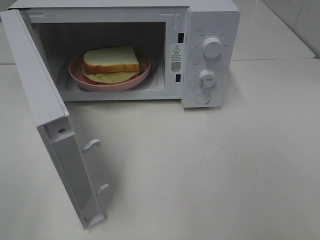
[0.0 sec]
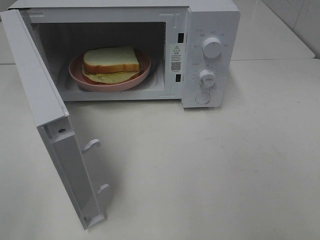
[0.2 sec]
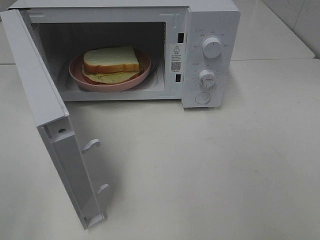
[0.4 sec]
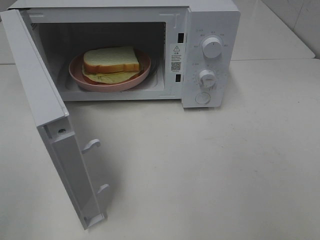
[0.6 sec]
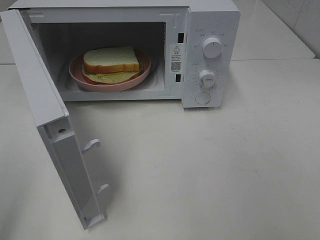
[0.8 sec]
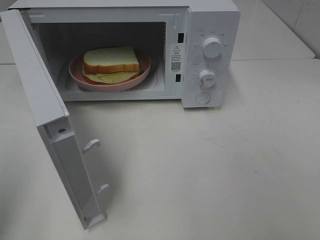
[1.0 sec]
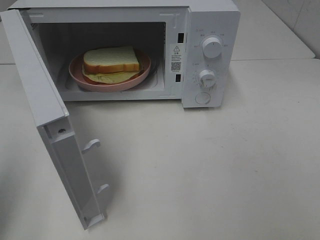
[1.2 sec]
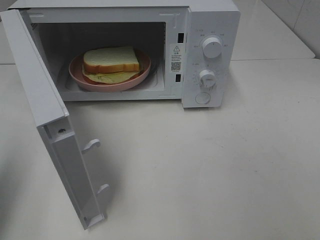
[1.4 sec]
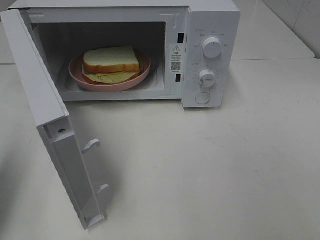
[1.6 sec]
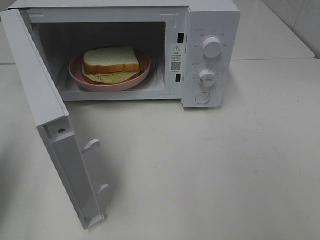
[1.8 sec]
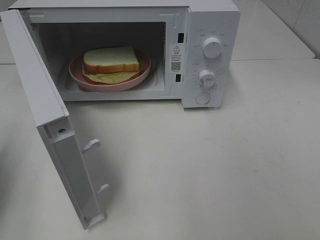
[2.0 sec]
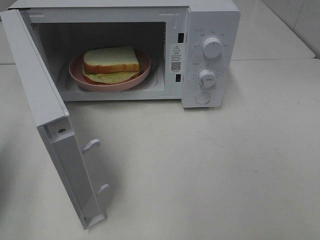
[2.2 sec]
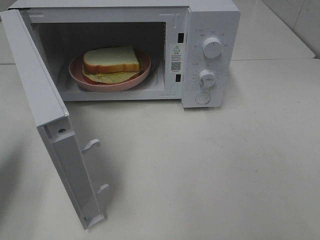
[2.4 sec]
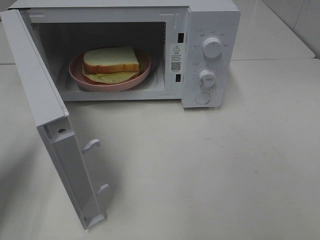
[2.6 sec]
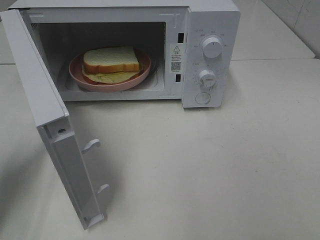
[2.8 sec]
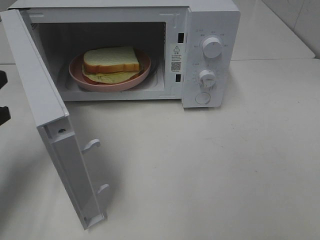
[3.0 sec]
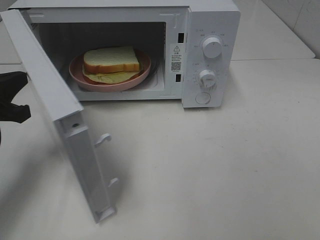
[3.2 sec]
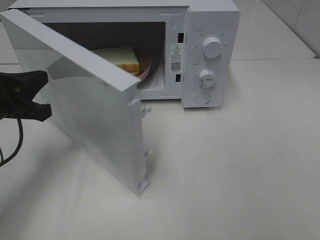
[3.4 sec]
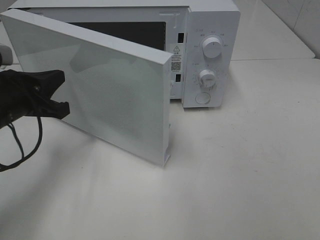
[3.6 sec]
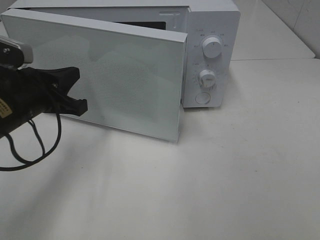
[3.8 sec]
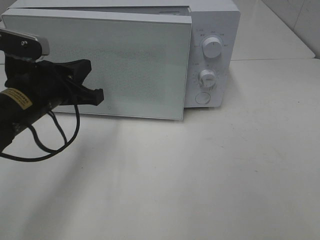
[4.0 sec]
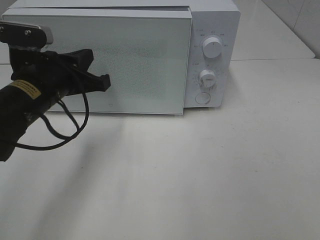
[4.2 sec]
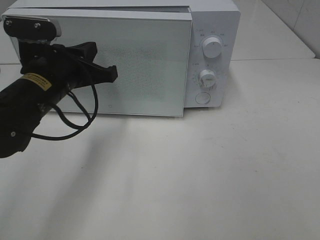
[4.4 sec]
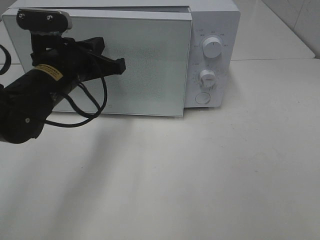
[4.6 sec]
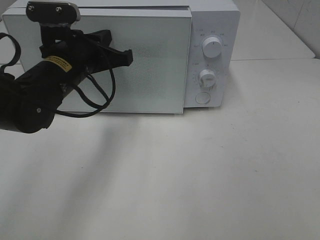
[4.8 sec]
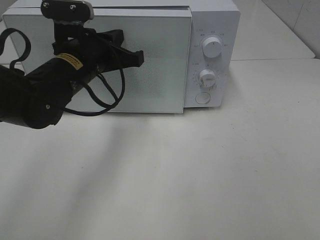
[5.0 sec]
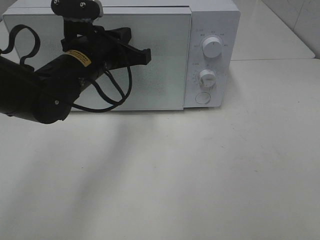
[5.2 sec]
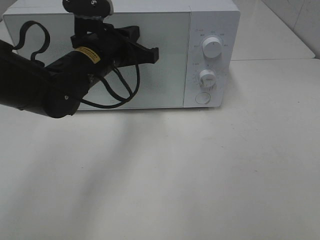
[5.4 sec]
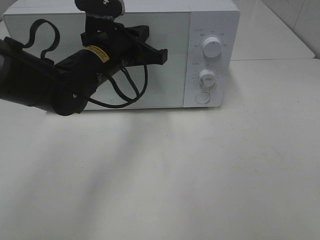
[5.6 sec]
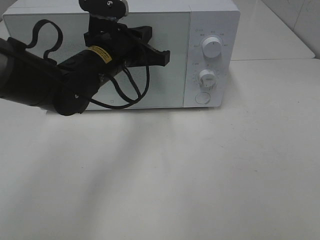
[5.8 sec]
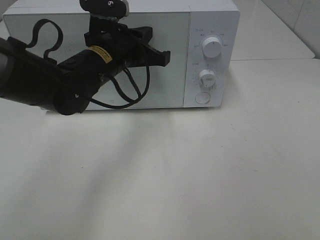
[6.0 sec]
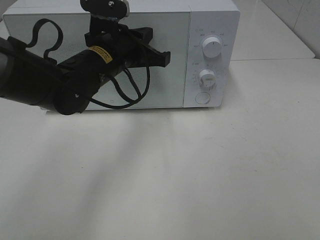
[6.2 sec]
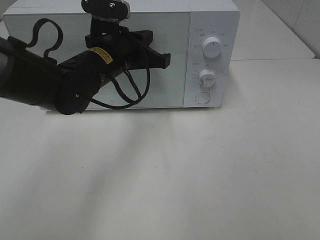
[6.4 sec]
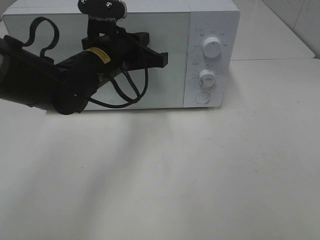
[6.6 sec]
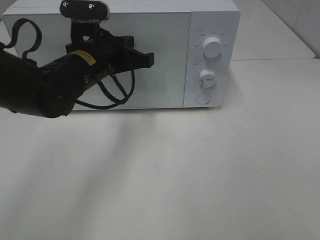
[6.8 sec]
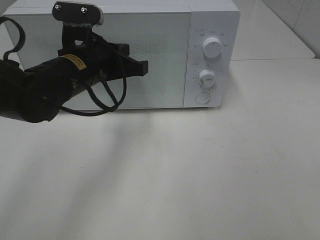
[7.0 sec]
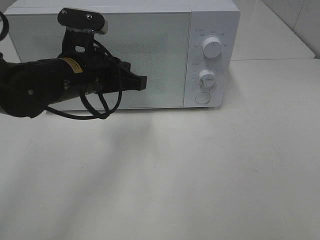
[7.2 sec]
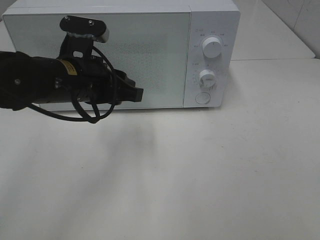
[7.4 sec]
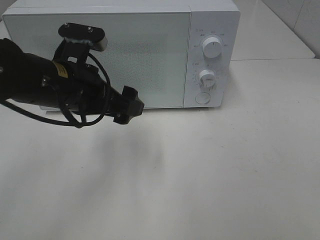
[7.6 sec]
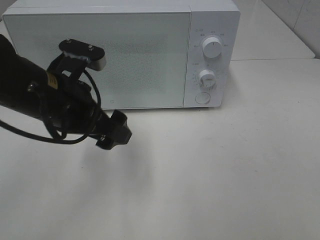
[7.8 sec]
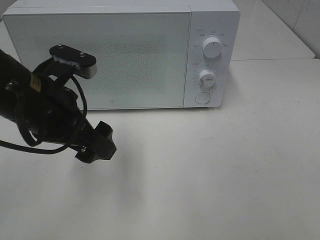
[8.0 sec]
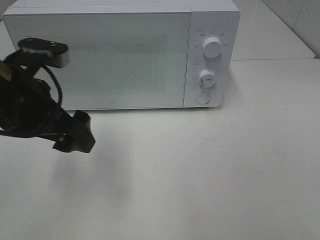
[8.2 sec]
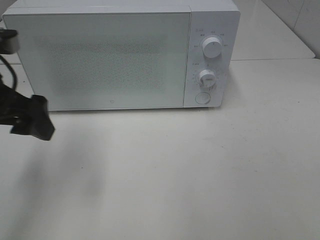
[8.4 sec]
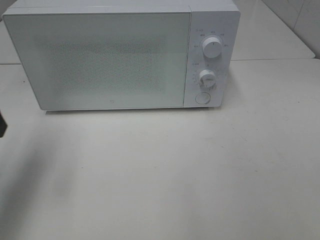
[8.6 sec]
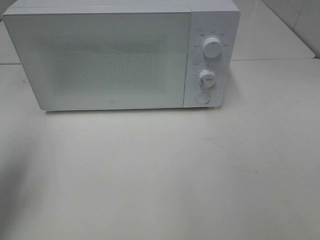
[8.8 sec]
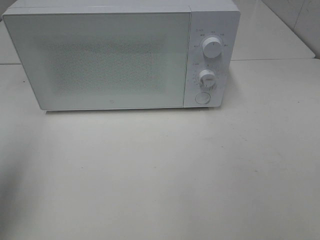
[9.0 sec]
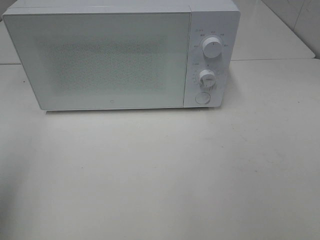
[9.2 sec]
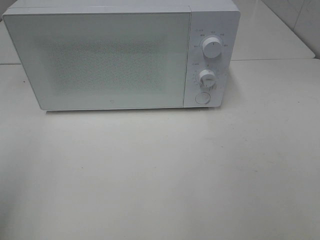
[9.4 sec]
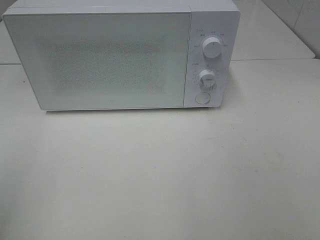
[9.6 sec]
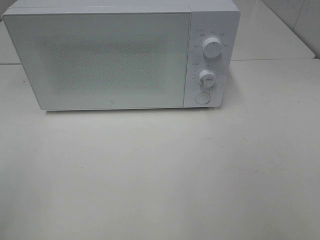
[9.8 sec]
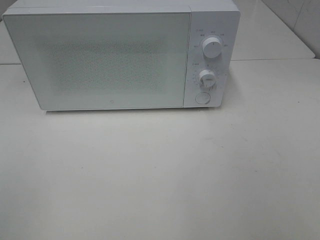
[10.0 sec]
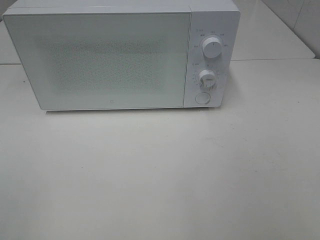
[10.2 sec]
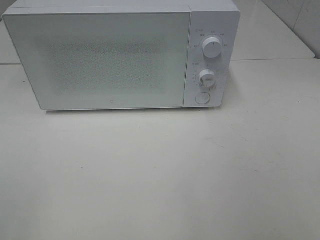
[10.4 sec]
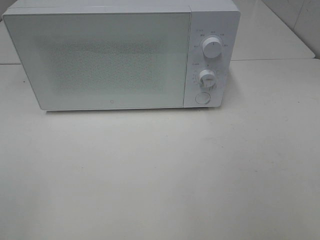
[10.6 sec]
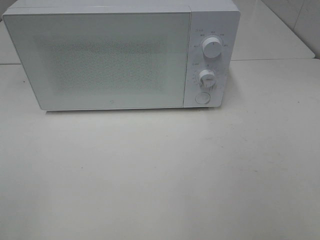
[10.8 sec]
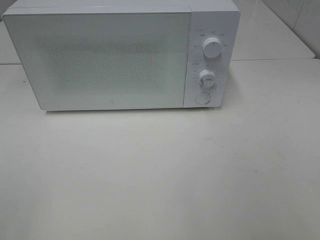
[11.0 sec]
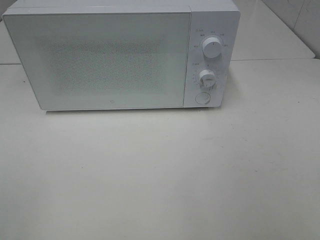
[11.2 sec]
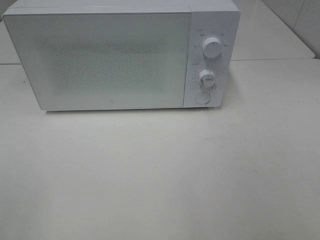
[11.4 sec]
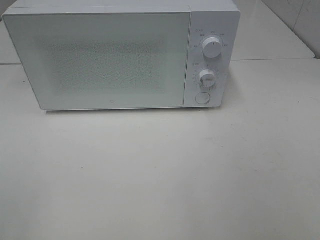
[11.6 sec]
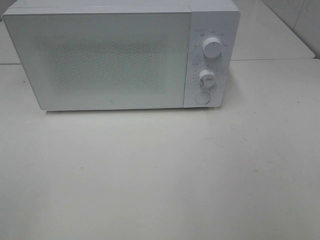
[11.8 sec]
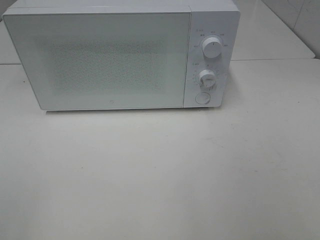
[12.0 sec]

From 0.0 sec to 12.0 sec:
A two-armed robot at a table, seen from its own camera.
Task of the whole recording: Heat Sandwich.
Step, from 0.0 sec to 7.0 sec: Left hand: close the microwave door.
From 0.0 sec to 1.6 sec: The left gripper goes about 15 cm forward, and closes its fingers.
From 1.6 sec to 3.0 sec: The left gripper heads downward and forward, covering approximately 15 cm.
From 3.0 sec to 4.4 sec: The left gripper travels to the right and forward by about 15 cm.
From 4.4 sec to 6.0 sec: The left gripper shifts approximately 10 cm to the right and forward.
From 6.0 sec to 7.6 sec: The left gripper shifts about 10 cm backward, and opens up.
From 7.6 sec to 9.0 sec: The left gripper heads to the left, upward and backward, covering roughly 25 cm.
From 9.0 sec to 10.4 sec: The left gripper shifts approximately 20 cm backward.
From 10.4 sec to 12.0 sec: The two grippers keep their place.

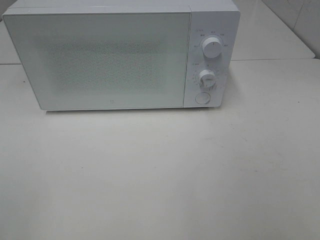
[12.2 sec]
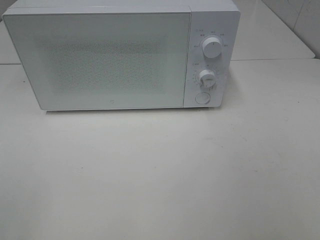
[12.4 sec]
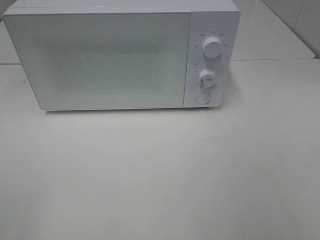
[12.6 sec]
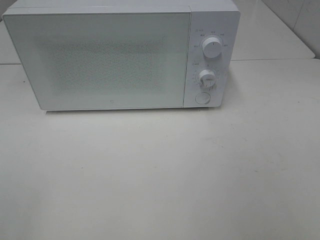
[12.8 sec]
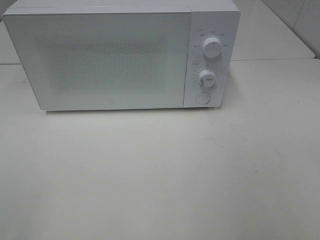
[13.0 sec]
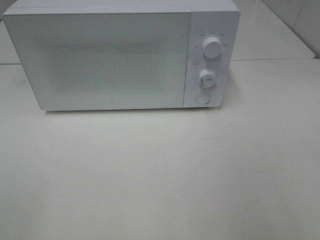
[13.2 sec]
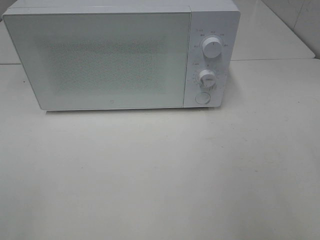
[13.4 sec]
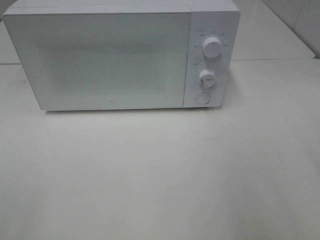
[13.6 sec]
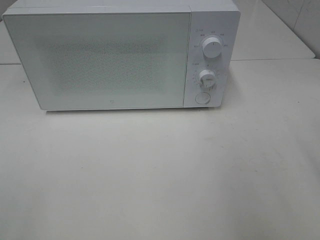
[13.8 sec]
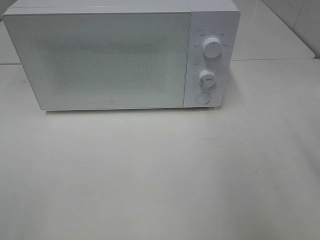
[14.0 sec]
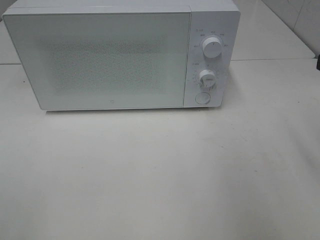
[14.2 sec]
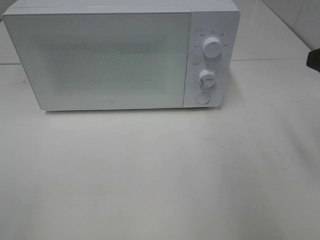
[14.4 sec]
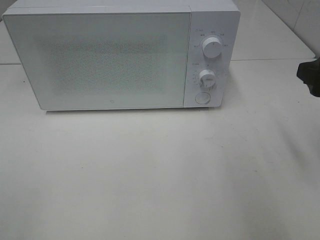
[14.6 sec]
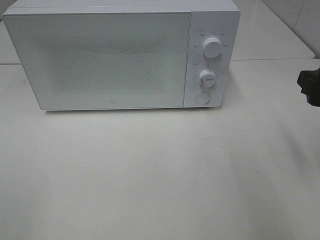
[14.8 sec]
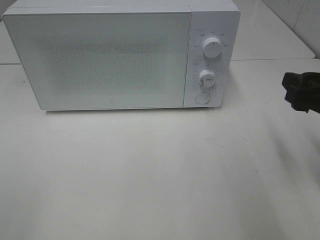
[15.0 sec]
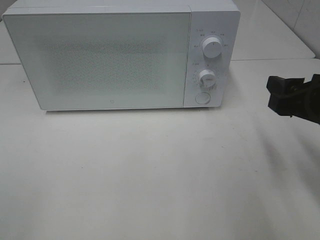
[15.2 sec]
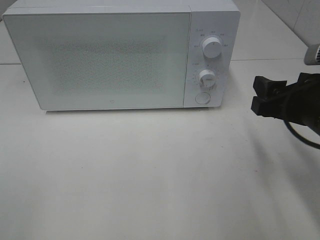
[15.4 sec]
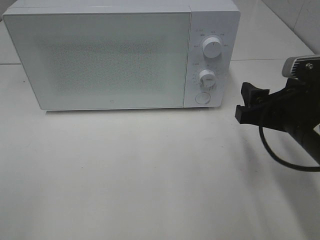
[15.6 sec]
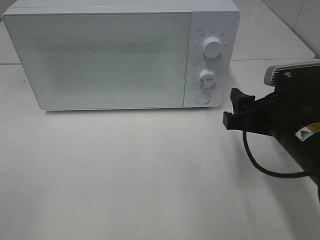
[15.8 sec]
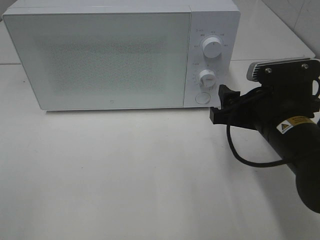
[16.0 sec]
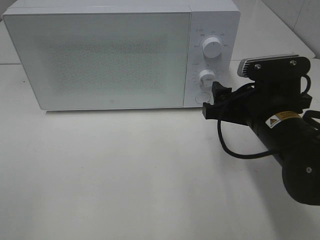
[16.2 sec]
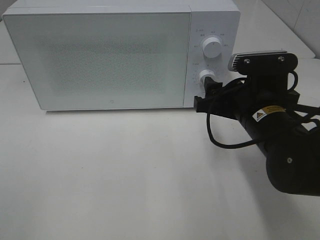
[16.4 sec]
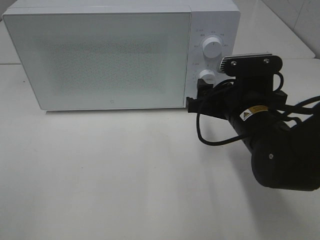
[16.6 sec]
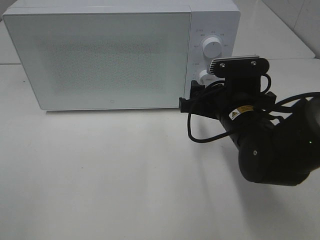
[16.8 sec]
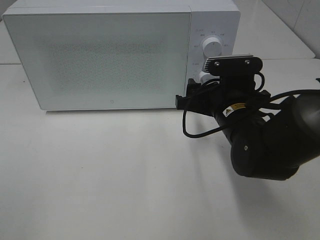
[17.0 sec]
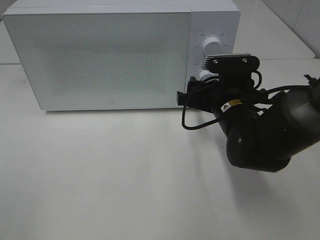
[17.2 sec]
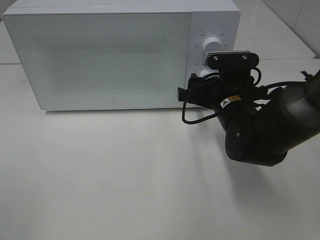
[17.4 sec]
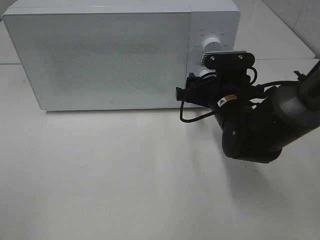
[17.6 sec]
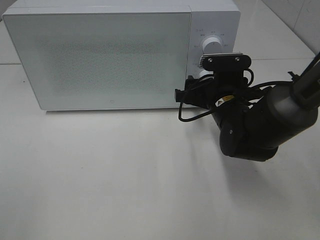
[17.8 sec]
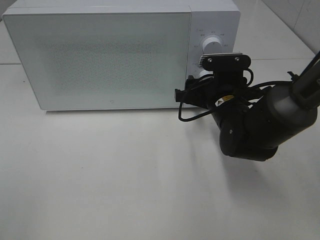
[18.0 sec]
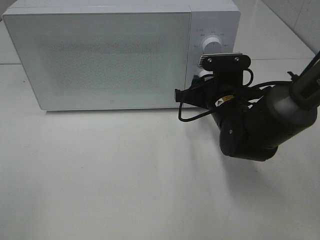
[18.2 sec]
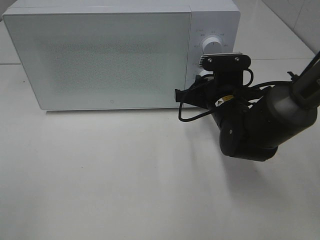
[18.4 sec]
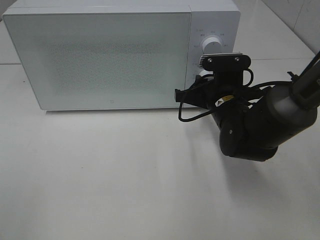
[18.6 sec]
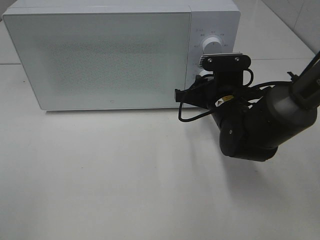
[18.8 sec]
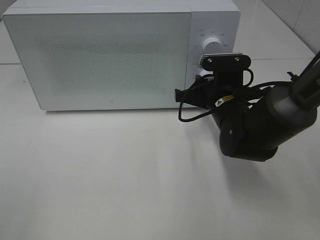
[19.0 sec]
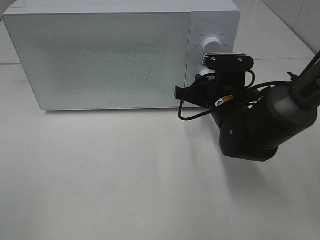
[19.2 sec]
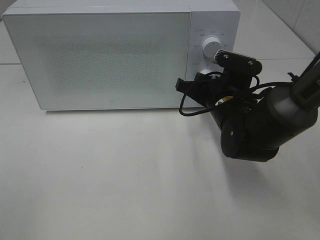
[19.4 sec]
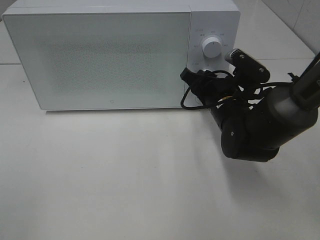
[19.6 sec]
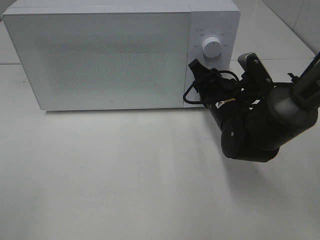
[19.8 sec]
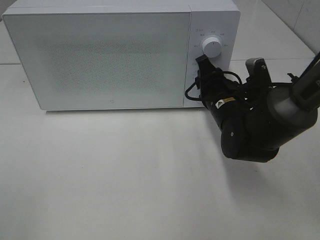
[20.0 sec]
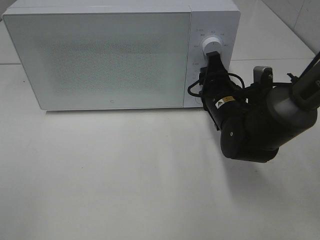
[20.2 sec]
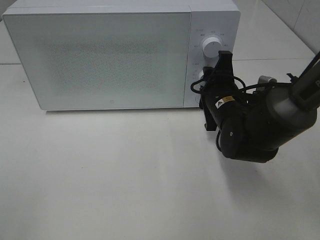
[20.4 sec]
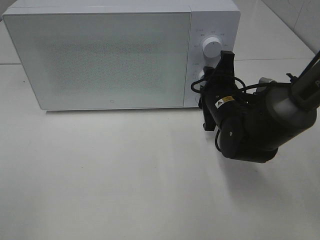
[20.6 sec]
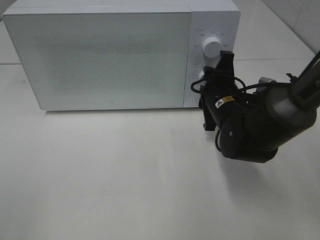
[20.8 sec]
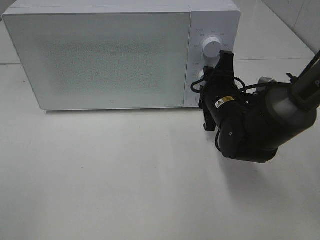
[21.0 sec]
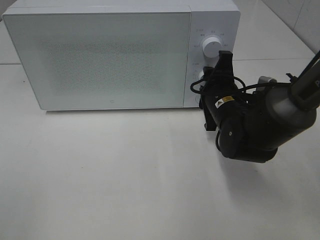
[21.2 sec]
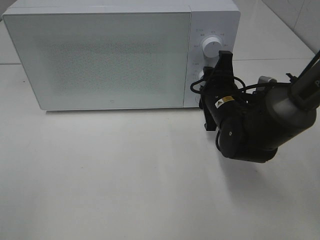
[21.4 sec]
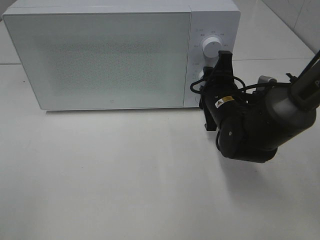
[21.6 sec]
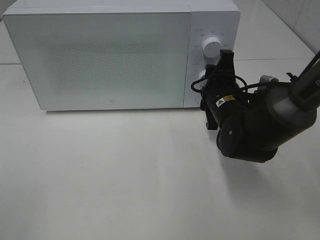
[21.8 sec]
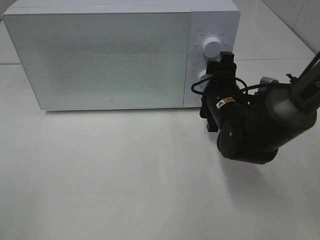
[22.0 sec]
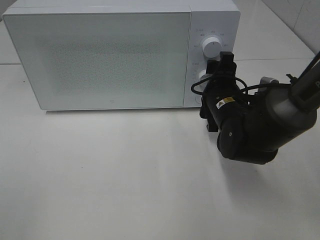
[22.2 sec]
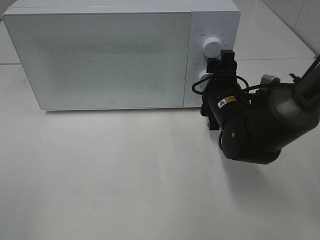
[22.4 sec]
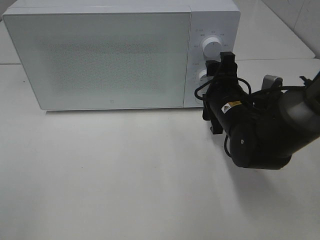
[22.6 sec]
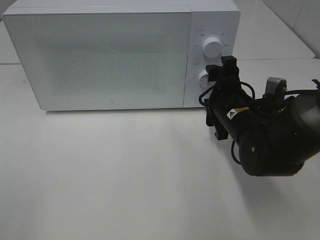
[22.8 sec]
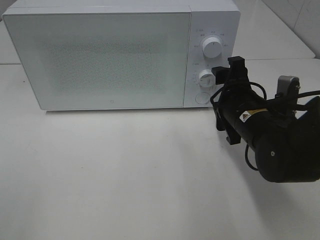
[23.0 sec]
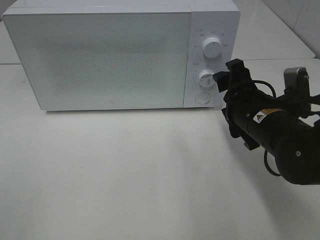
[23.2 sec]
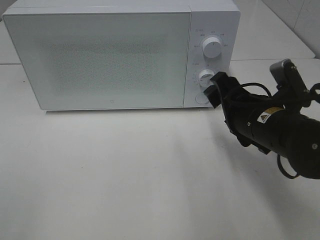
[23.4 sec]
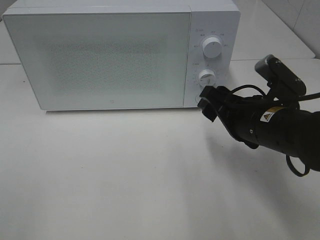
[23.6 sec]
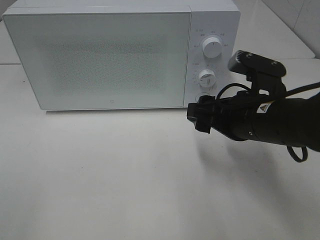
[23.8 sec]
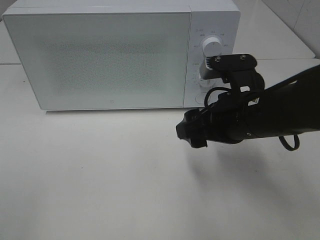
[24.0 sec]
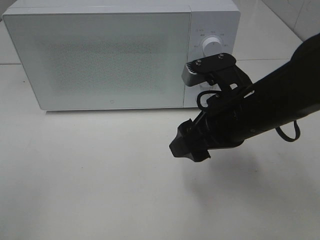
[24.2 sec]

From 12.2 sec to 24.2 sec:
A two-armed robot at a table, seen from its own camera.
Task of the whole recording: Heat Sandwich.
Step, from 12.2 sec to 22.0 sec: Right hand: twist timer button.
From 13.8 sec to 15.2 sec: The right gripper shifts some 10 cm downward and forward.
From 15.2 sec to 16.6 sec: The right gripper heads to the left, forward and downward, covering some 15 cm.
From 16.6 sec to 18.2 sec: The right gripper travels forward by about 5 cm.
From 21.2 sec to 22.6 sec: The right gripper opens.
From 22.6 sec to 24.2 sec: The right gripper moves backward and upward, approximately 10 cm.
